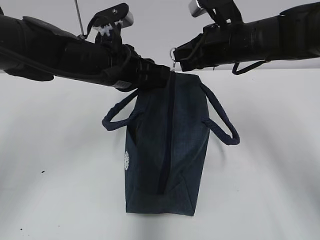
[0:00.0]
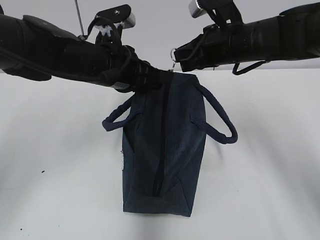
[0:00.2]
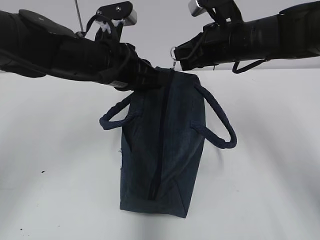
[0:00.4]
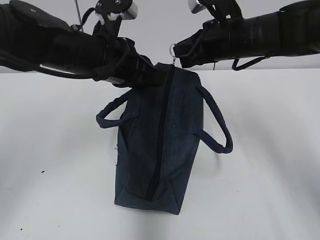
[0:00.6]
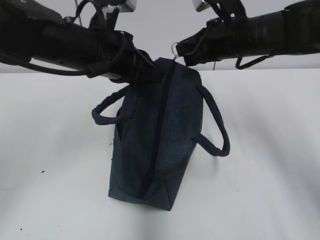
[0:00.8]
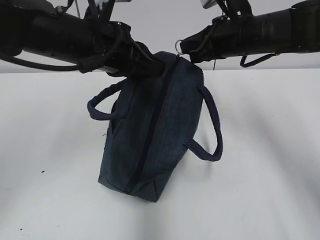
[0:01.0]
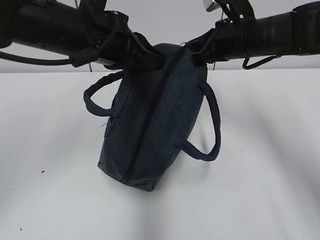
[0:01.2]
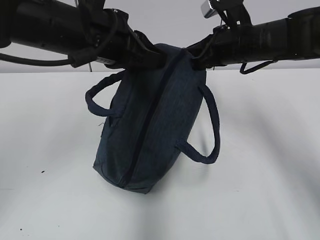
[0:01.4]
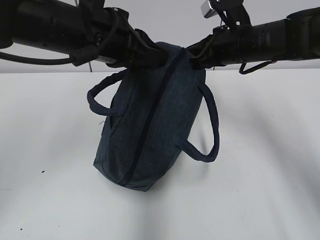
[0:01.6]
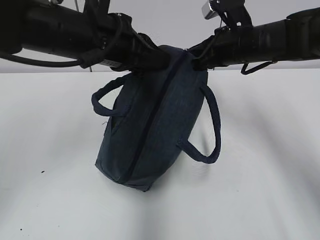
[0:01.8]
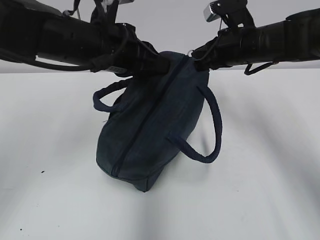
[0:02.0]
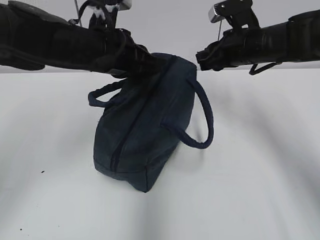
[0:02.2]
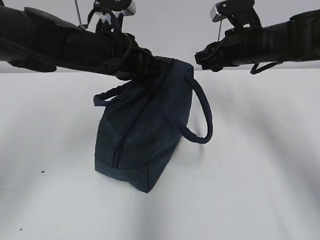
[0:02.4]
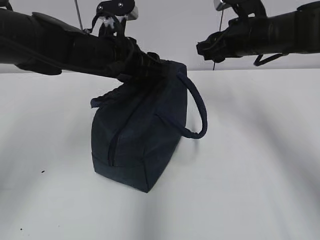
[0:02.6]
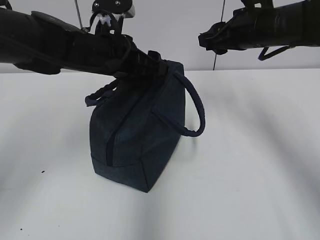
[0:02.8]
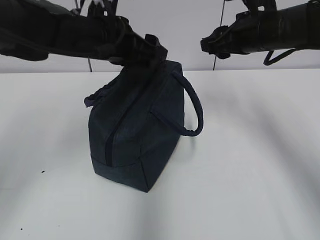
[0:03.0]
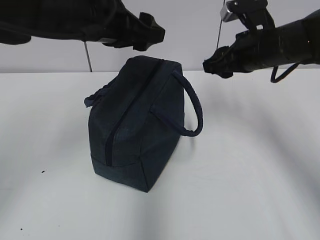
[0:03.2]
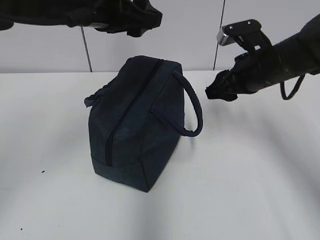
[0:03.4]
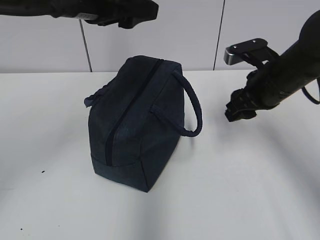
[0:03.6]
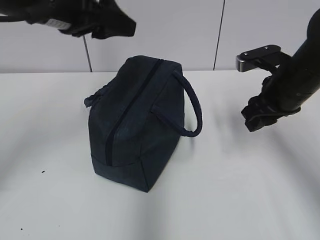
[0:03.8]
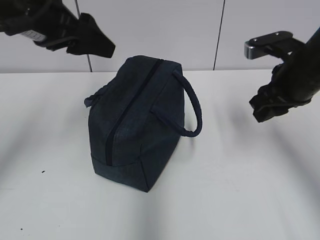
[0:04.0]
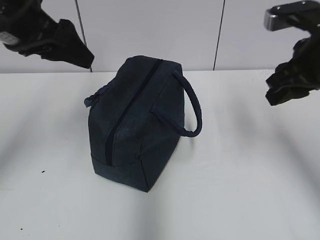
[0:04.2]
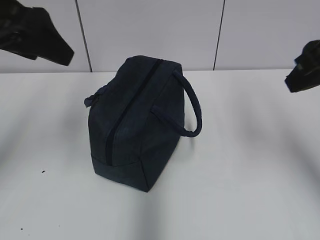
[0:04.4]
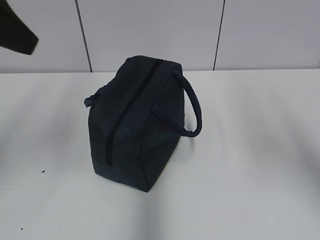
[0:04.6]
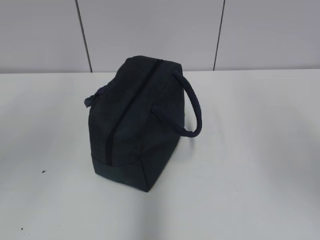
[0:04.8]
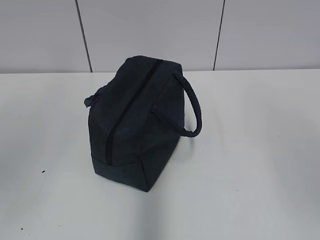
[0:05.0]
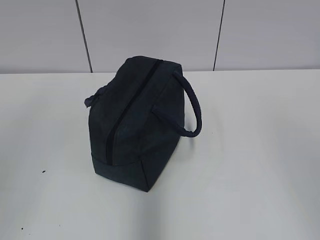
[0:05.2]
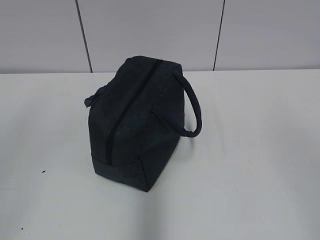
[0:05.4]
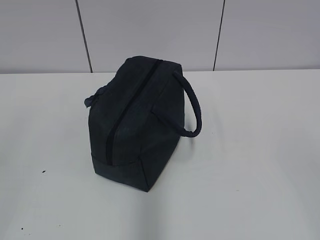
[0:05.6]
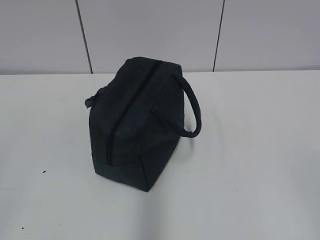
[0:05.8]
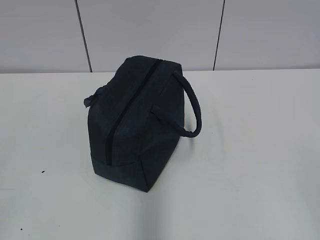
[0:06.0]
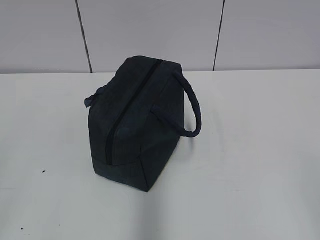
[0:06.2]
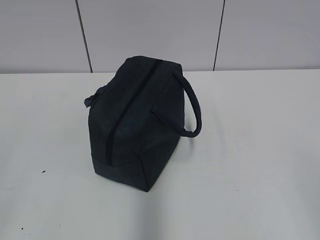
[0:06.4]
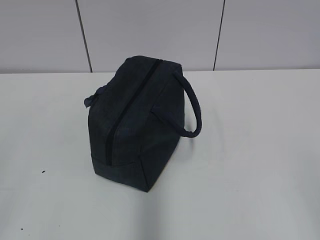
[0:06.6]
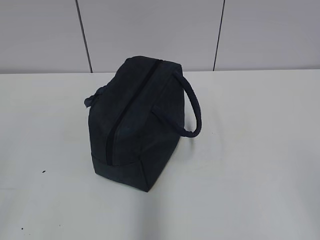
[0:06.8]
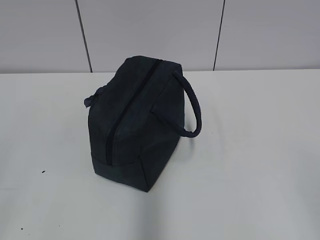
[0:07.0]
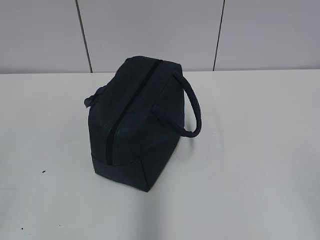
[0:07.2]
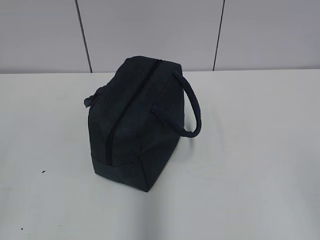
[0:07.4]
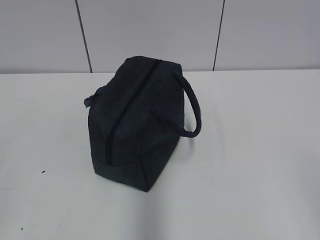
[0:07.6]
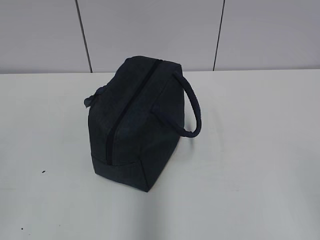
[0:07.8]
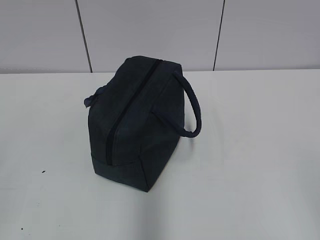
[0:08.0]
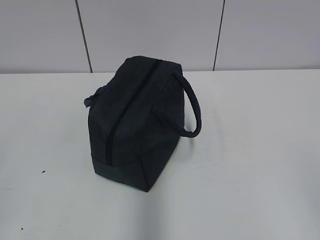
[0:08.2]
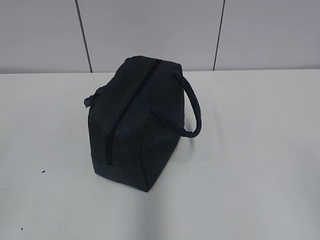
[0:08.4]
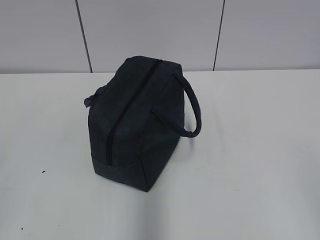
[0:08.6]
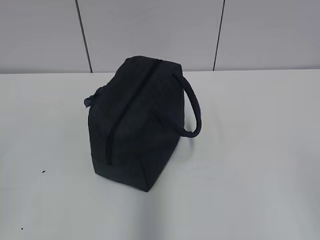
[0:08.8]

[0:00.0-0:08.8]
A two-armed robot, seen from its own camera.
Step, 0:00.0 to 0:02.0: Pull the zipper with your right hand.
Step, 0:02.2 to 0:02.8: Grab the lunch bag with your left hand.
0:00.0 to 0:01.4: The left gripper shifts some 5 cm upward.
0:01.4 to 0:03.0: The left gripper is displaced forward by roughly 5 cm, and opens. Meanwhile the right gripper opens up.
0:03.0 to 0:04.4: The left gripper is displaced to the left, backward and upward by roughly 20 cm; the right gripper goes some 20 cm backward and upward.
0:04.4 to 0:05.8: The two grippers go about 30 cm backward.
0:07.4 to 0:08.8: Neither gripper changes place.

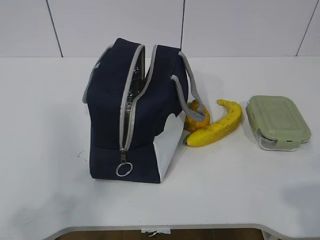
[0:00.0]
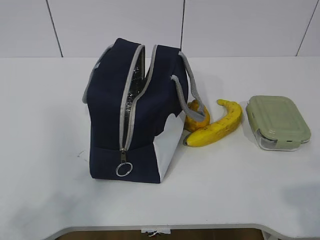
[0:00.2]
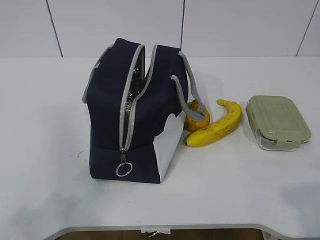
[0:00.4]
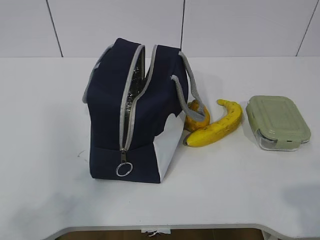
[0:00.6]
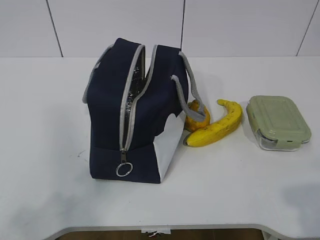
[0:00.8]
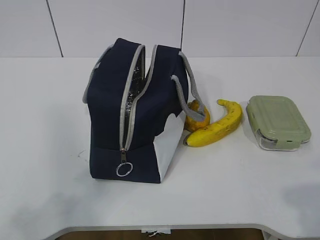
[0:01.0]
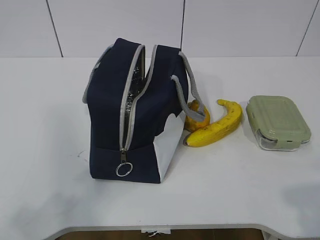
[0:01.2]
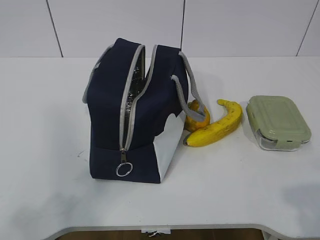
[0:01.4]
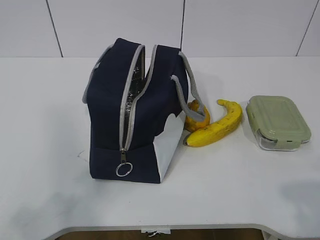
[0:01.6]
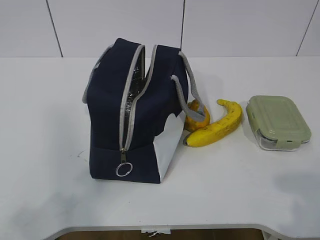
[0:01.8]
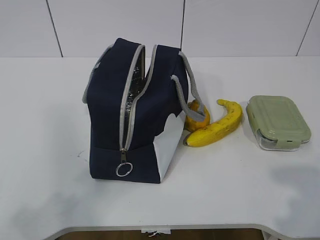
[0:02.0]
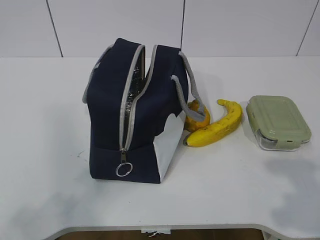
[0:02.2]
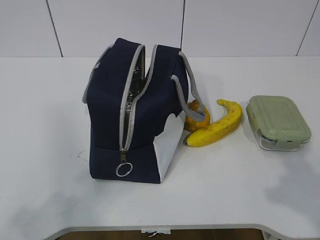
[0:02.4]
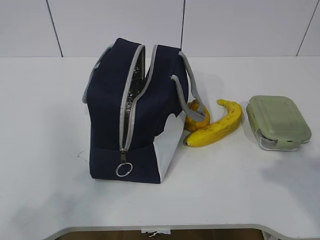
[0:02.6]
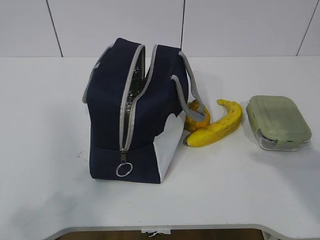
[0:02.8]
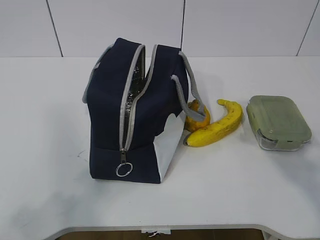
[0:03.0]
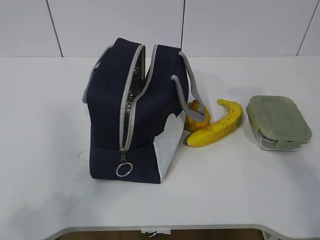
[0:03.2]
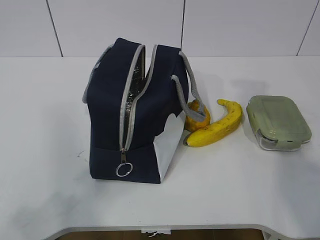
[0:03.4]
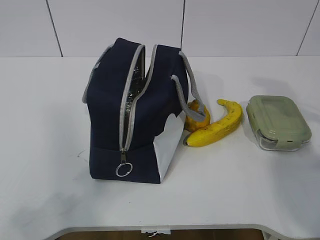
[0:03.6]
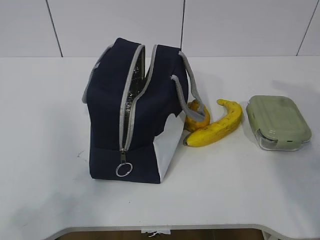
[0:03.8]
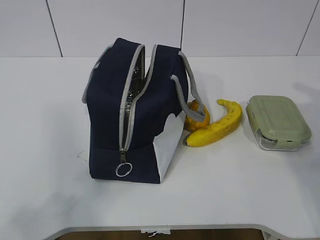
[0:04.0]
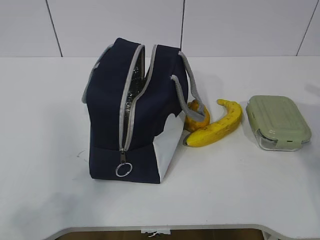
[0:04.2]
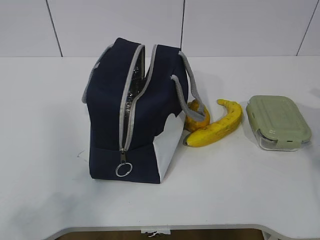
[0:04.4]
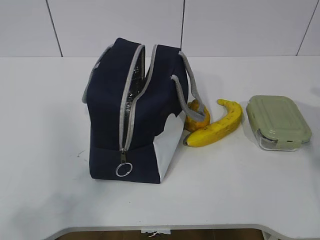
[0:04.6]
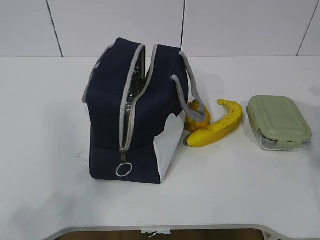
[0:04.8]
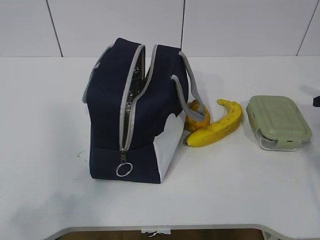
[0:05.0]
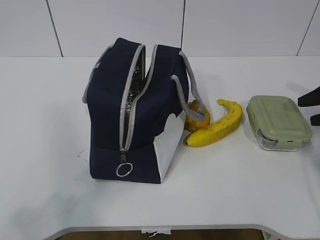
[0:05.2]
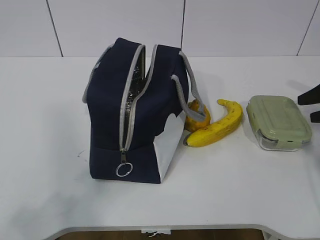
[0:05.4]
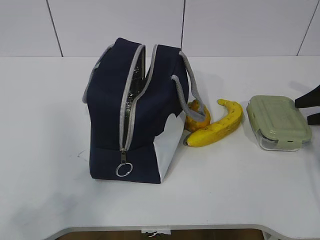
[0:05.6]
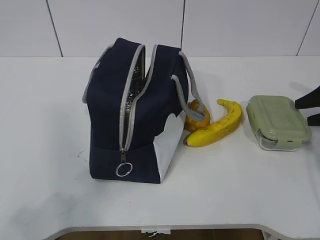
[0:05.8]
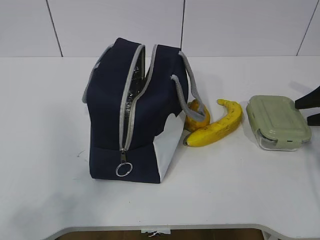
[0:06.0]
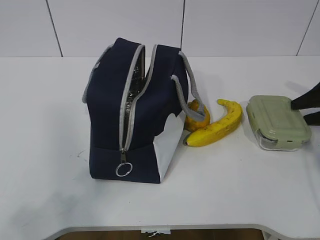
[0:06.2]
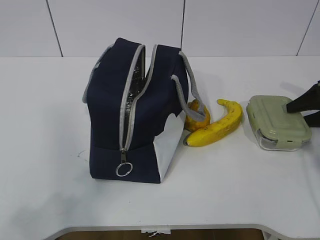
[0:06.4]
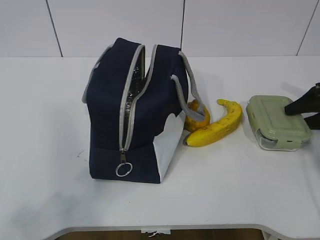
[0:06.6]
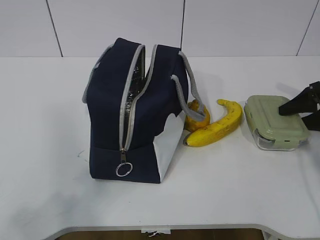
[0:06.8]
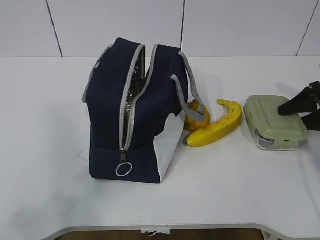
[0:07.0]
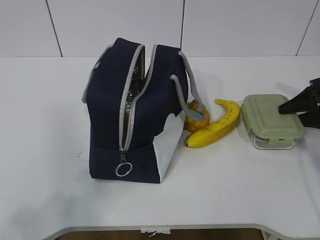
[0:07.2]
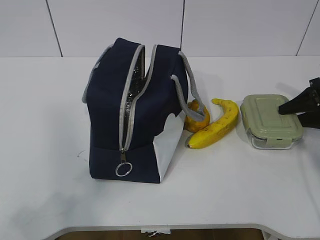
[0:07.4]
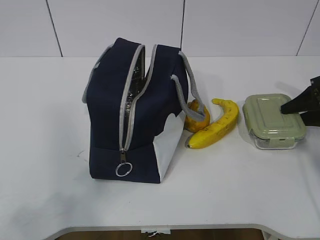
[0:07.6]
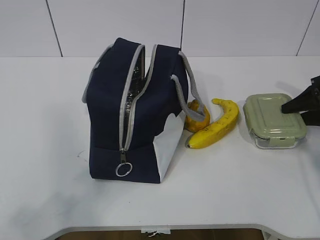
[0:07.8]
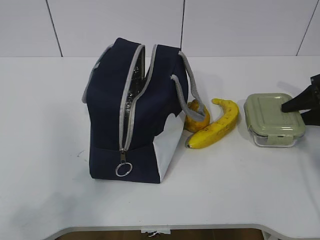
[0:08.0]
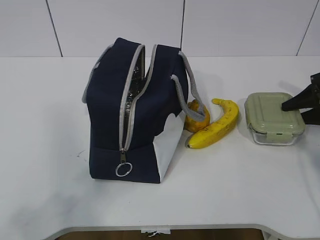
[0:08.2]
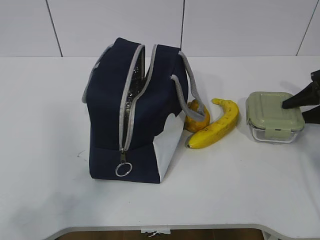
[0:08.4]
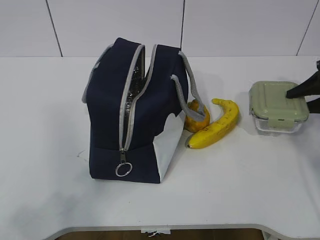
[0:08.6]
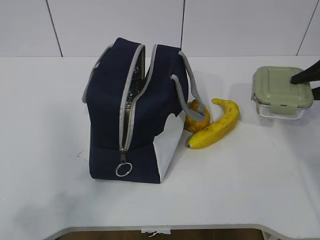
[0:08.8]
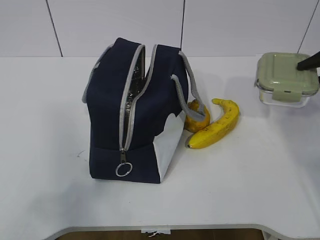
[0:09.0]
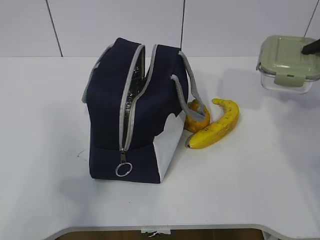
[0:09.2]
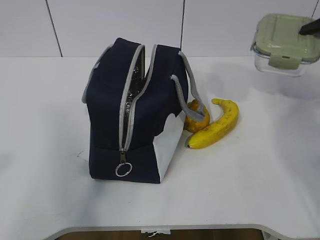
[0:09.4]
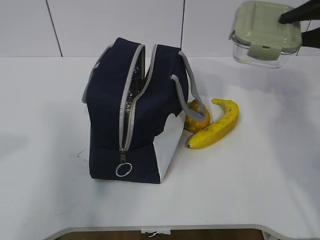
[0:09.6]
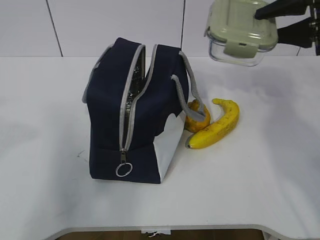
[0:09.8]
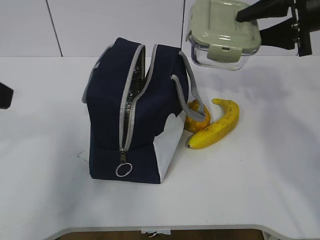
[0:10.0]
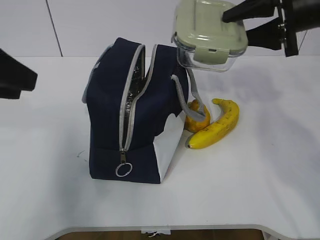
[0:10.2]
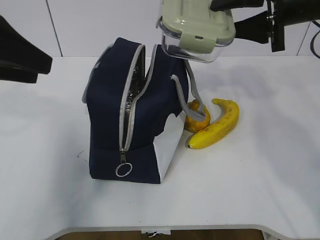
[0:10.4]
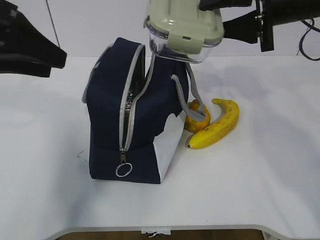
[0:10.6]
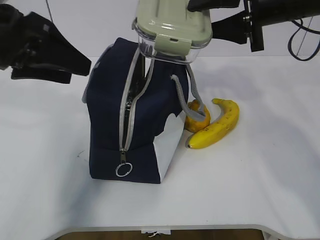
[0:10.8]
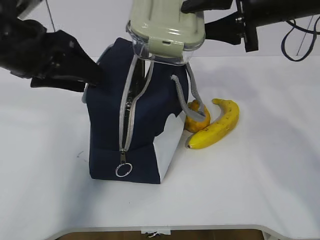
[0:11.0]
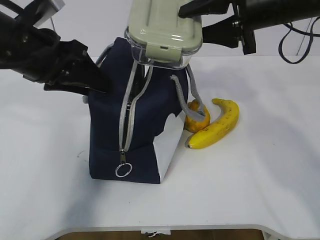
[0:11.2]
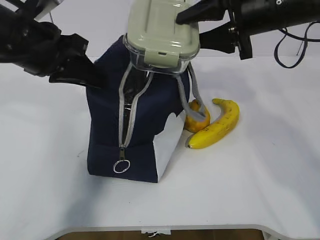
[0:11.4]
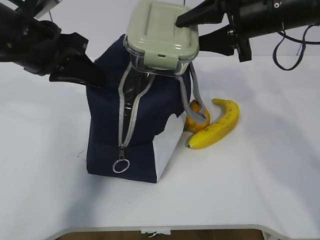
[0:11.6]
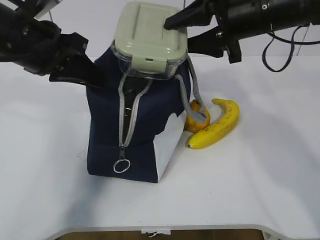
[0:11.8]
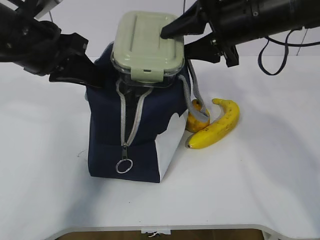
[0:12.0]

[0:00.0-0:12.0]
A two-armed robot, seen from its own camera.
Step, 0:00.0 to 0:07.4: Grasp the box with the right gripper.
0:01.6 to 0:03.0: The right gripper travels forward by approximately 20 cm.
0:03.0 to 0:04.4: The right gripper goes roughly 25 cm to the right, forward and downward.
0:04.4 to 0:06.0: The right gripper travels forward by some 5 cm, and opens.
0:06.0 to 0:07.6: The grippers move only a little.
0:07.6 to 0:09.0: The right gripper is displaced upward by about 10 cm.
0:09.0 to 0:10.4: The left gripper is displaced forward by some 25 cm; the right gripper goes approximately 20 cm to the left and upward.
0:10.4 to 0:12.0: The left gripper goes about 10 cm to the right and forward, and closes its fingers; the right gripper travels to the left by some 10 cm.

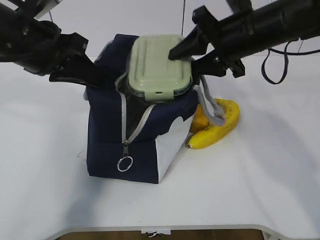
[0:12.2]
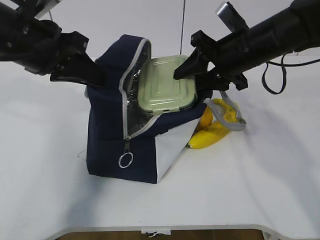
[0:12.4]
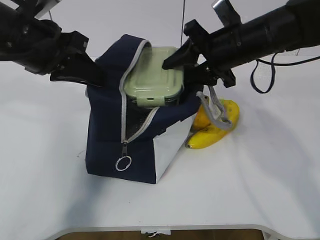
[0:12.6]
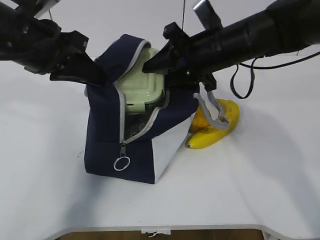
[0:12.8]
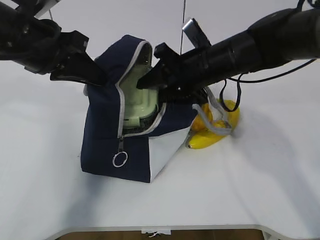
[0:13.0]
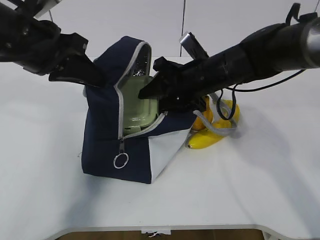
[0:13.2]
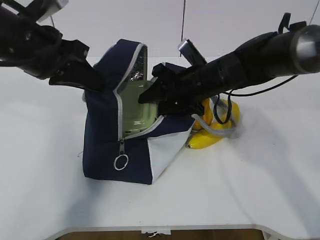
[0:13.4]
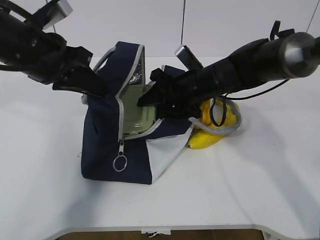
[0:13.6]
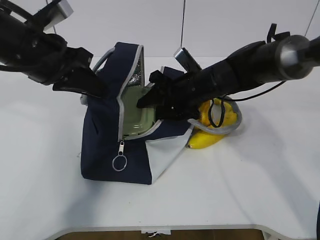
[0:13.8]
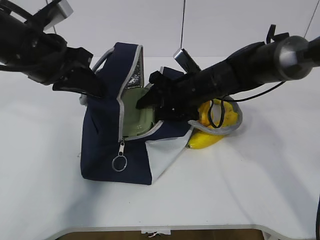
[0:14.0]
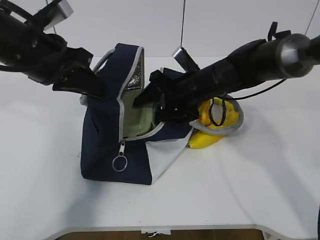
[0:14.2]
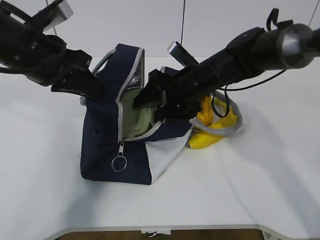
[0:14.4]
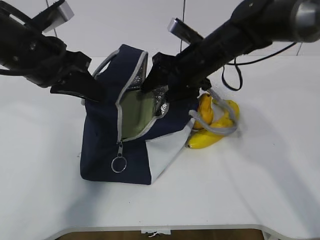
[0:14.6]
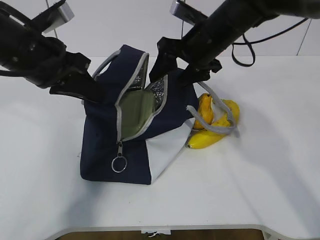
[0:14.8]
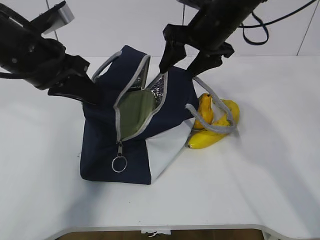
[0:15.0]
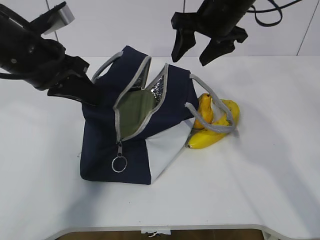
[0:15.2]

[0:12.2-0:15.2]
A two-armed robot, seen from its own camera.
Step, 0:12.2 to 0:14.8: Place the box into the package with the right gripper.
0:12.2 to 0:13.8: The right gripper moves downward and to the left, roughly 15 cm.
0:13.8 to 0:15.2: The right gripper shifts roughly 15 cm upward.
